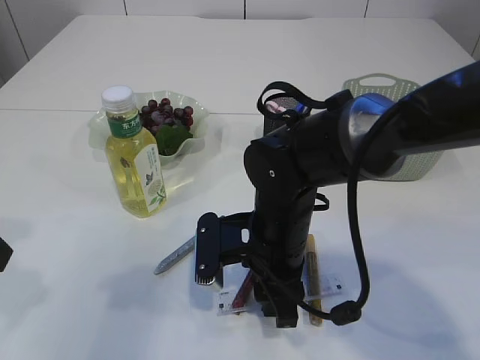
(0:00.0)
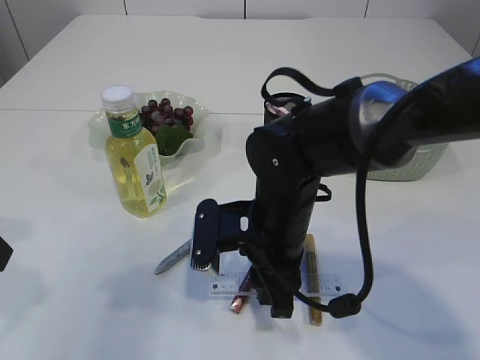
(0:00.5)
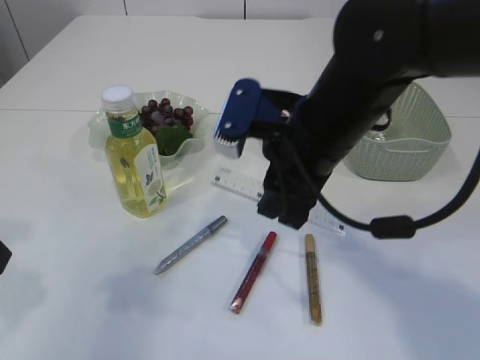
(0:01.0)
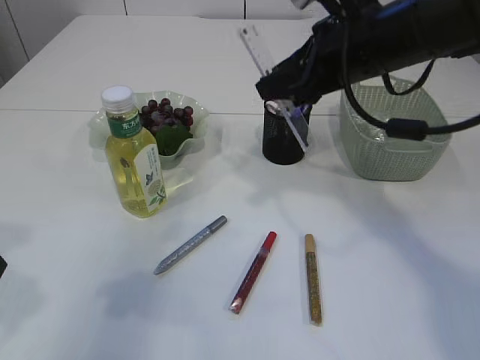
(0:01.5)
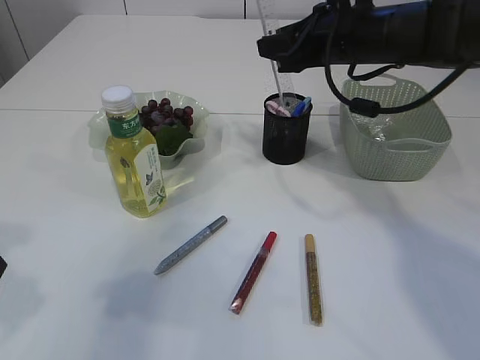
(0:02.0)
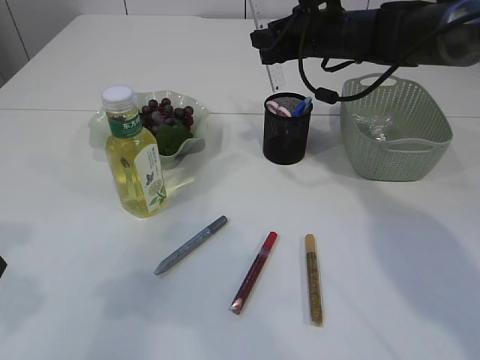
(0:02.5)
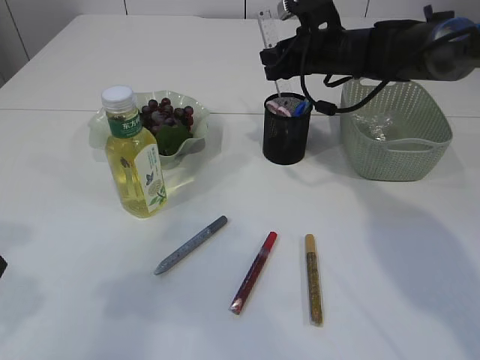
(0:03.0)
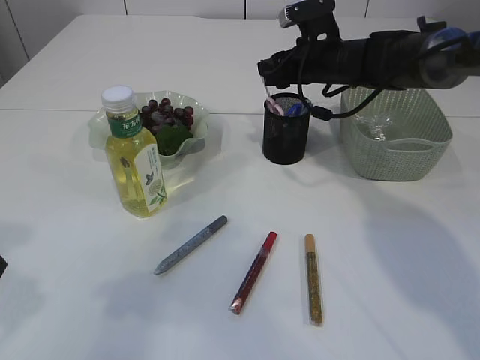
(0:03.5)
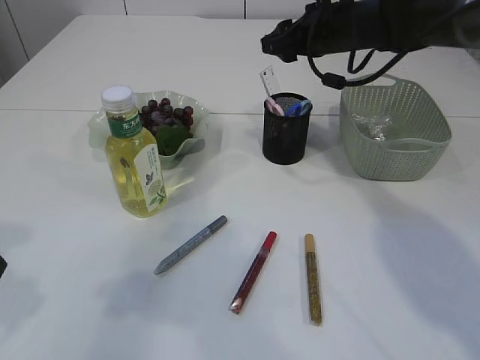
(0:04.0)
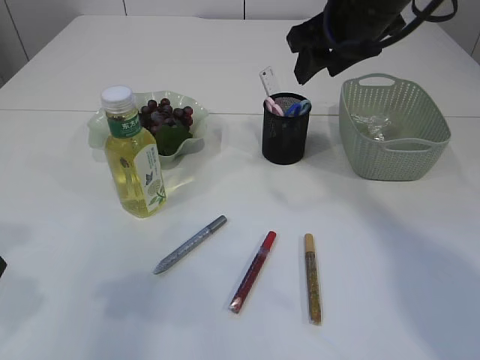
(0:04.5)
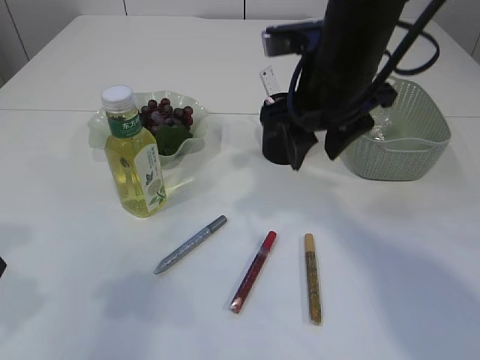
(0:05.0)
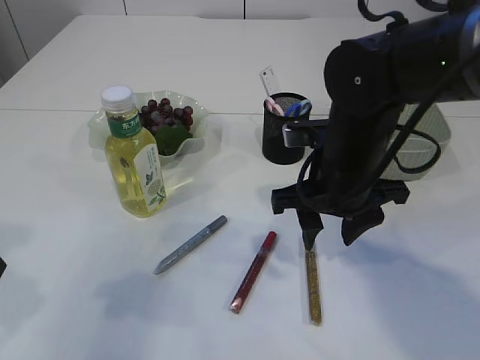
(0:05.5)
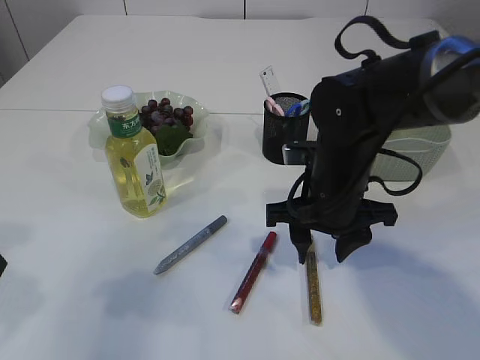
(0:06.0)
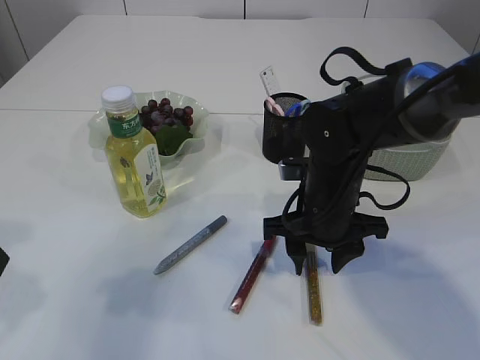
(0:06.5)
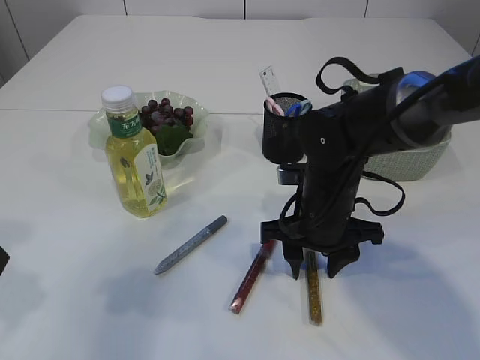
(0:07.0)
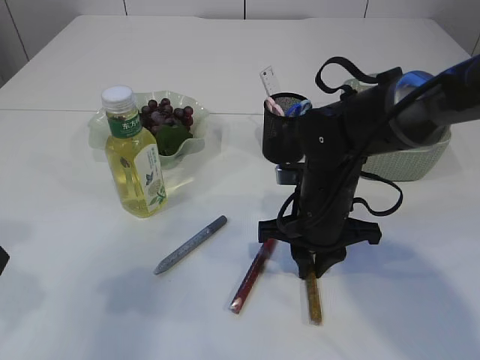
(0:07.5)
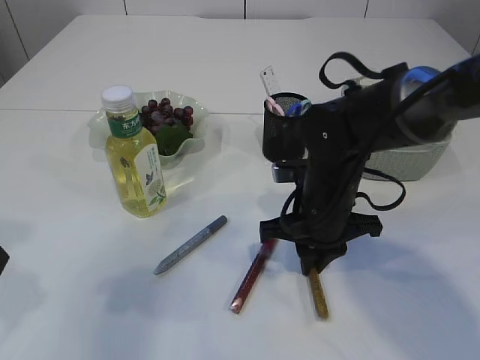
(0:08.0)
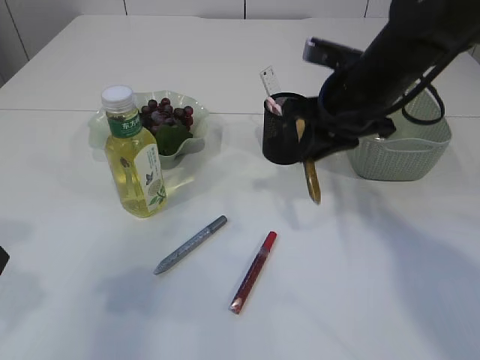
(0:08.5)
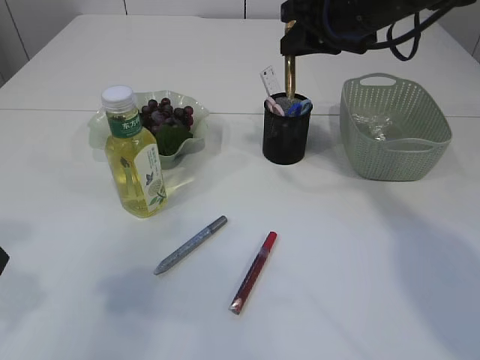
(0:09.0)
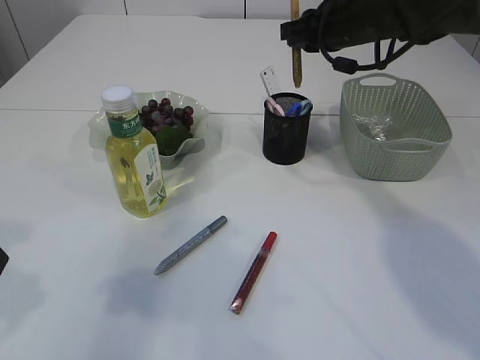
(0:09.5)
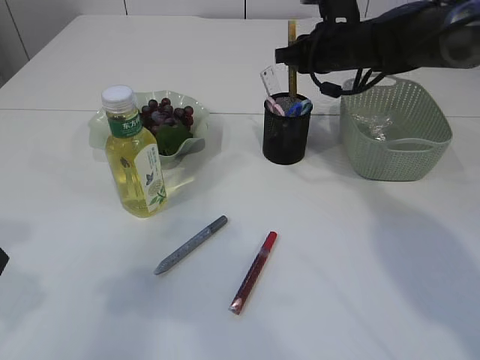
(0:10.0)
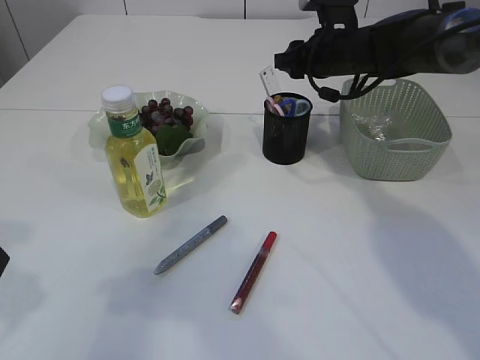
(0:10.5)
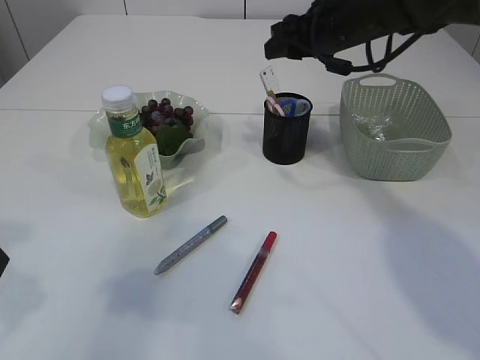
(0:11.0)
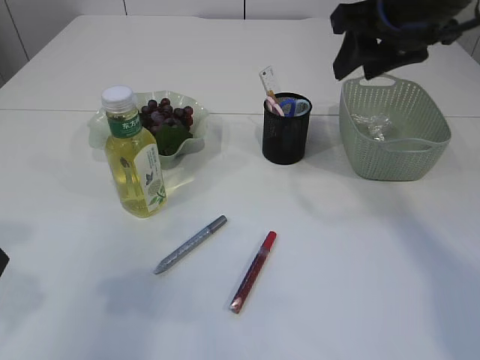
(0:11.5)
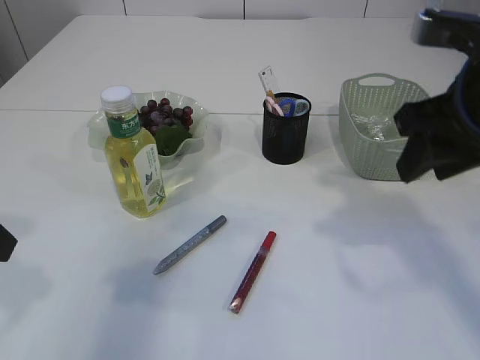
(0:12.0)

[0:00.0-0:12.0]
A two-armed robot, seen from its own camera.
Step, 0:01.0 to 0:03.5: Place the ruler into the pen holder.
Step, 0:04.0 to 0:08.0: pick up the yellow glue.
Step, 0:08.5 to 0:10.5: place the yellow glue into the pen holder.
0:00.0 to 0:02.0: The right gripper goes some 25 cm upward, forward and to the right.
0:02.0 to 0:04.0: The right gripper is displaced forward by about 5 cm.
0:04.0 to 0:06.0: The right gripper heads backward and downward, covering roughly 20 cm.
0:06.0 to 0:08.0: The right gripper closes.
0:08.0 to 0:10.0: The right gripper shifts roughly 20 cm forward and upward.
0:10.0 to 0:12.0: The right gripper goes some 25 cm backward, and opens up.

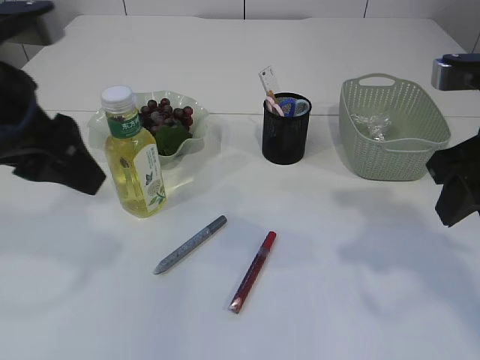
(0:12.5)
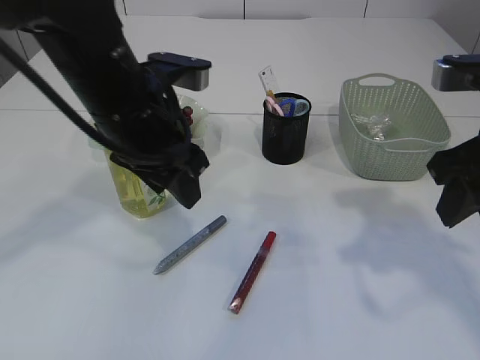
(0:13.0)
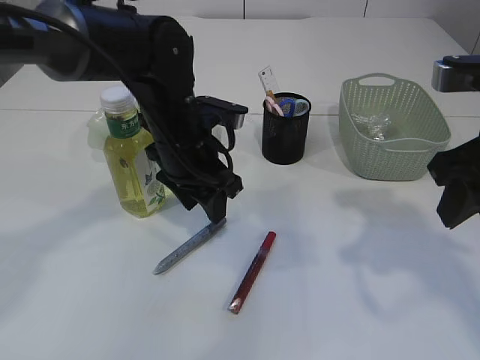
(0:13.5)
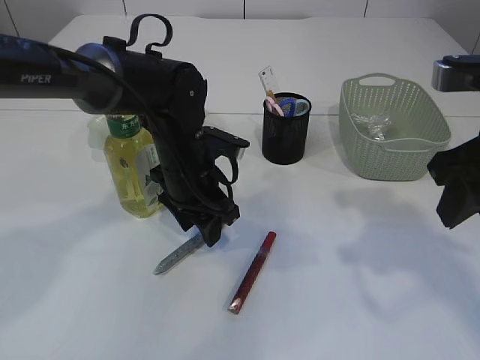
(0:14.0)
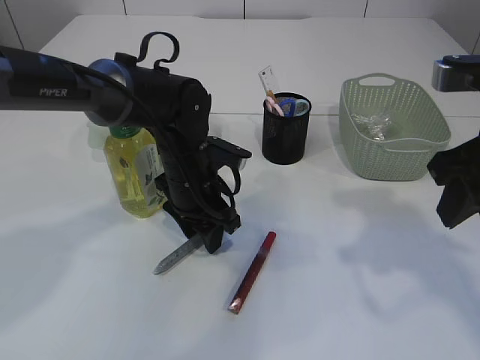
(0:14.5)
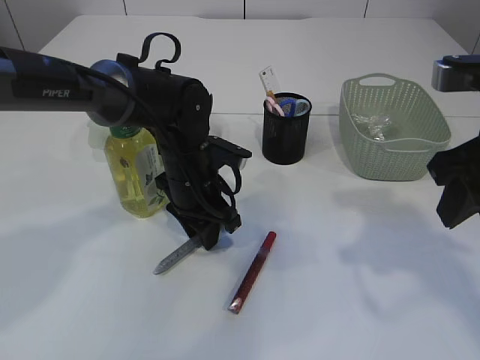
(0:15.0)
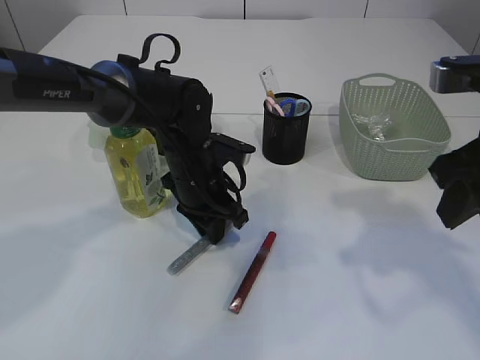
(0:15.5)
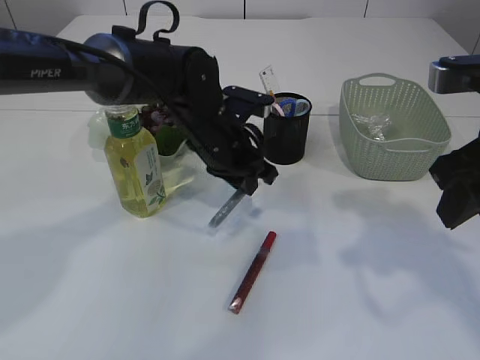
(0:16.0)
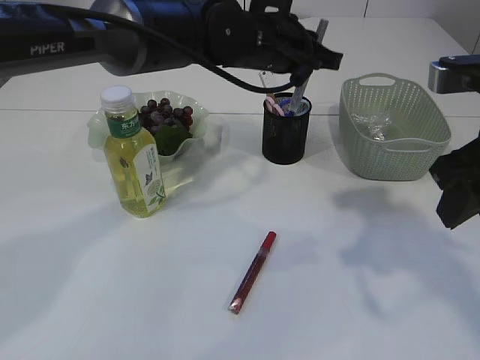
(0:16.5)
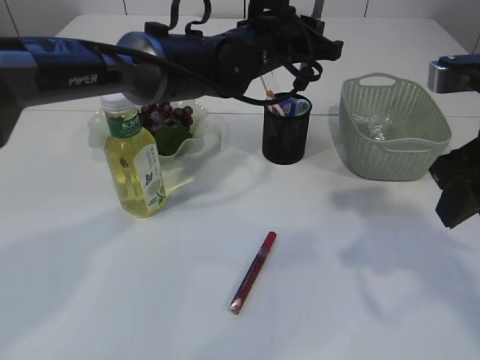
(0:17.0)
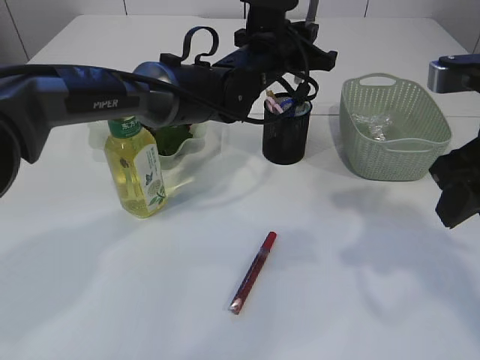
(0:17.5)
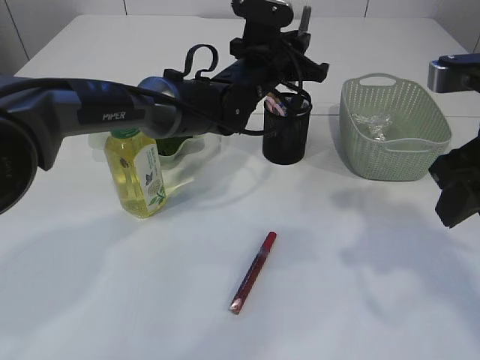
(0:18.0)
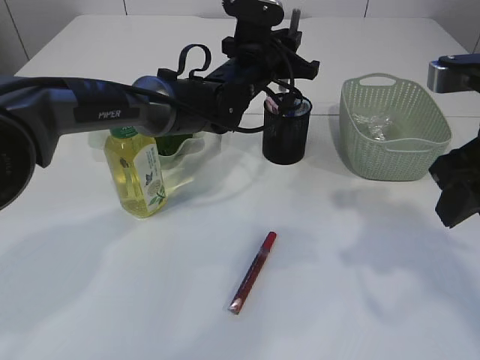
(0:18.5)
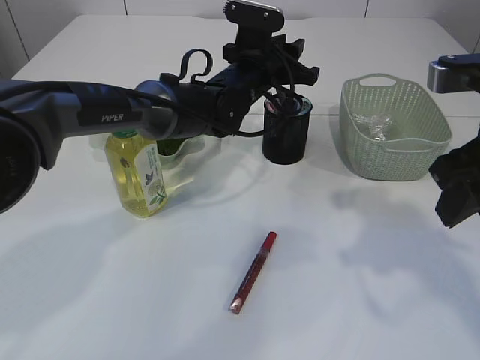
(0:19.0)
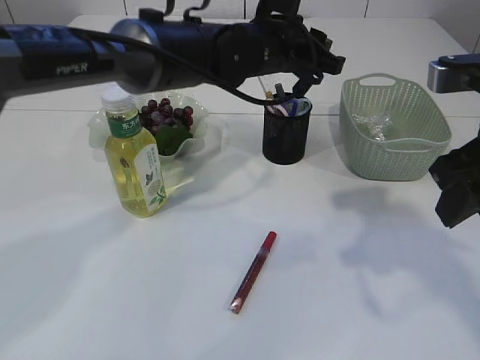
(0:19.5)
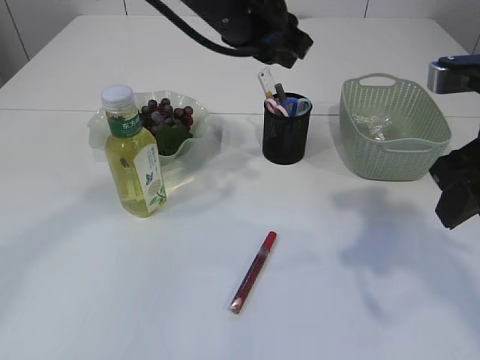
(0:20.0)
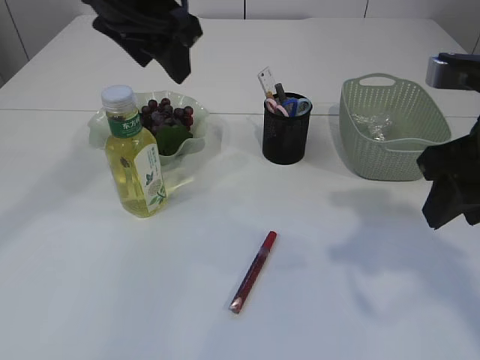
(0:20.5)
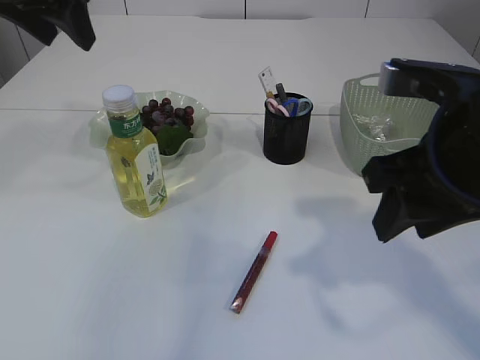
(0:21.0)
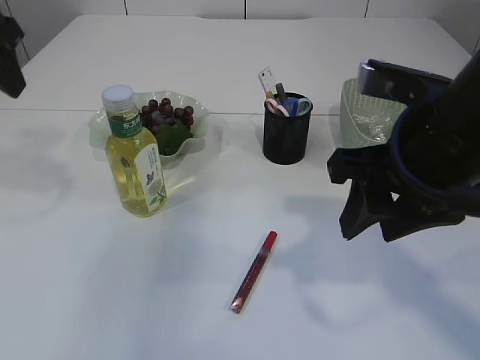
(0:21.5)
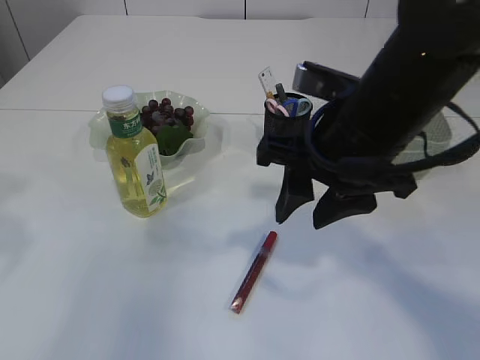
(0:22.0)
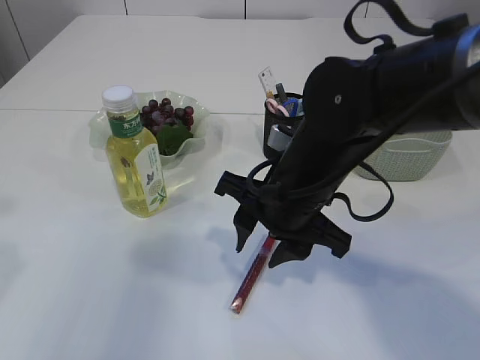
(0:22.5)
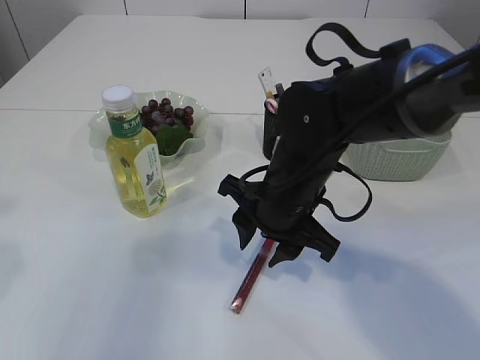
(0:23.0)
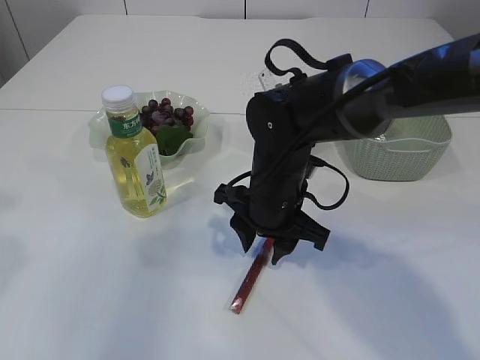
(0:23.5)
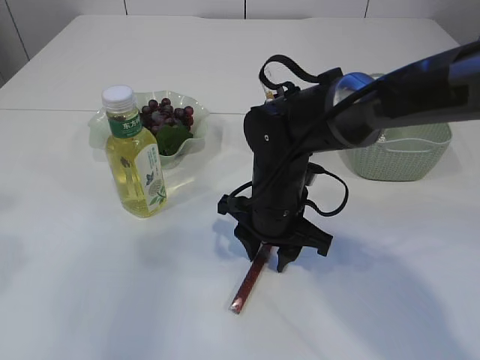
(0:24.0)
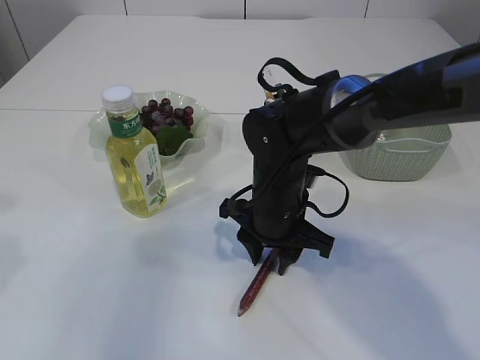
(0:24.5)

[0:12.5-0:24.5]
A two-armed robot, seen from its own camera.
Step, 0:12.5 to 0:16.0: pick up the silver glue.
Step, 0:16.5 to 0:19.0: place the silver glue into the pen holder.
0:12.5 to 0:14.5: The left gripper goes approximately 25 cm downward, forward and to the right.
0:14.5 to 0:16.5: The left gripper is displaced upward and to the right by approximately 15 cm, and closes up.
0:16.5 to 0:18.5: The left gripper is displaced downward by about 5 cm.
0:18.5 to 0:20.5: The left gripper heads upward, to the left and backward, covering about 25 cm, and opens.
0:20.5 to 0:22.5: The right gripper travels to the left and downward by approximately 20 cm; the left gripper heads to the left and backward, covering roughly 25 cm.
0:22.5 to 0:24.5: The right gripper is displaced downward and forward by about 10 cm.

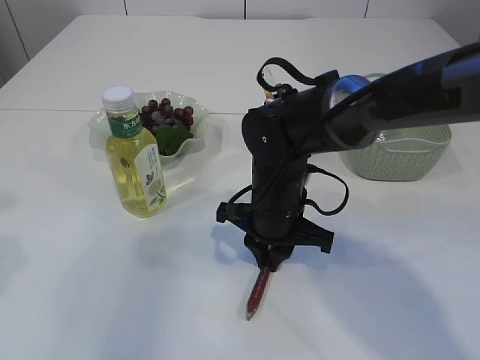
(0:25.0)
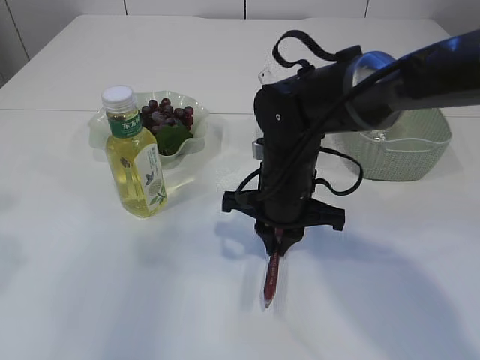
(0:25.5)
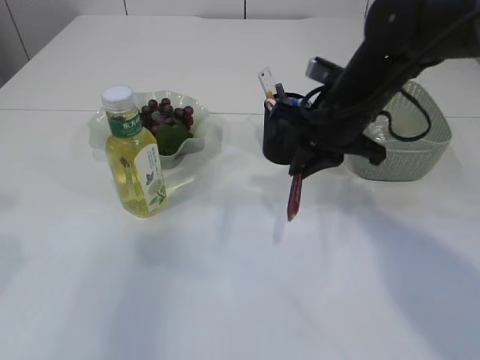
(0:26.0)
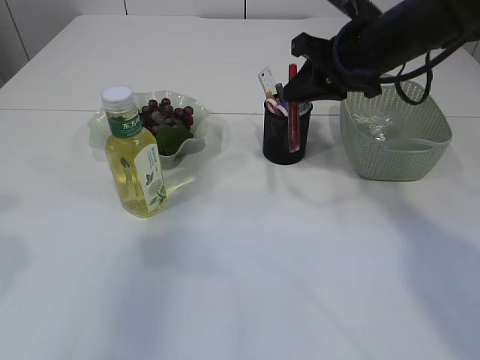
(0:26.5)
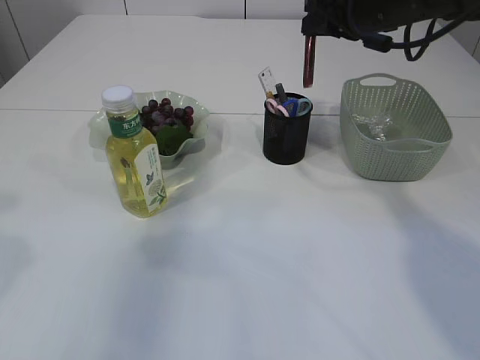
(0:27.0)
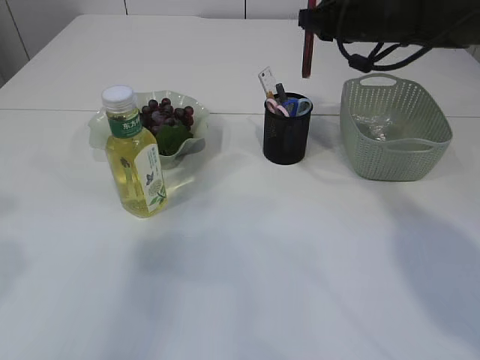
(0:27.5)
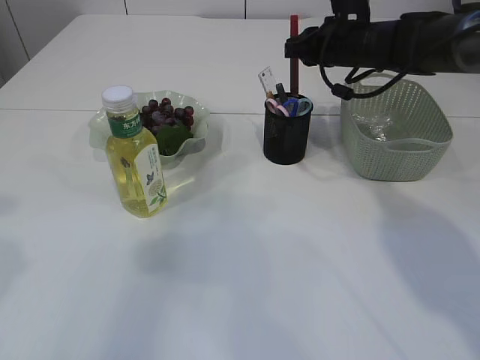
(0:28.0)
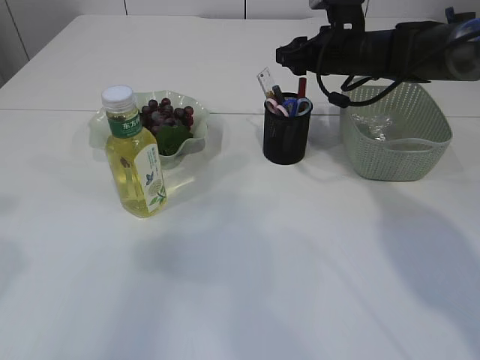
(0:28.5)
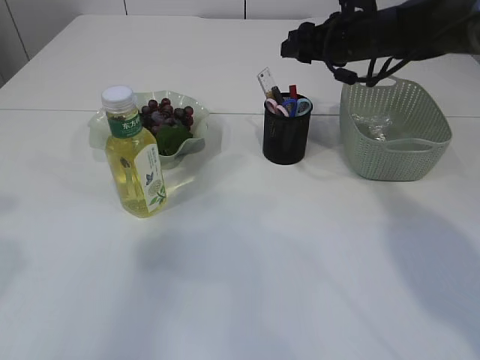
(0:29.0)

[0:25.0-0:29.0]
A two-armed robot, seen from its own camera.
Step, 0:26.0 to 0:28.5: place the red glue into the pen holder.
0:25.0 to 0:27.0: The right gripper is displaced upward, to the right and forward by approximately 25 cm.
0:27.0 to 0:29.0: The right gripper shifts some 10 cm downward and forward, and opens.
